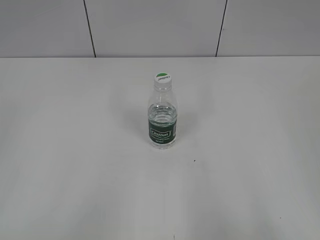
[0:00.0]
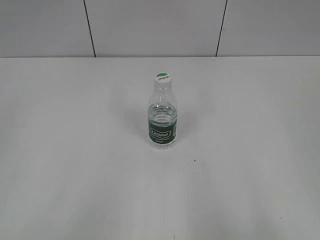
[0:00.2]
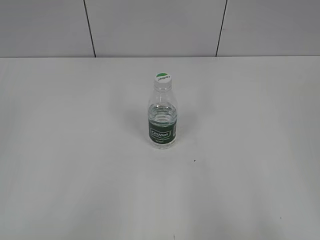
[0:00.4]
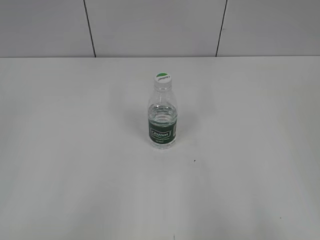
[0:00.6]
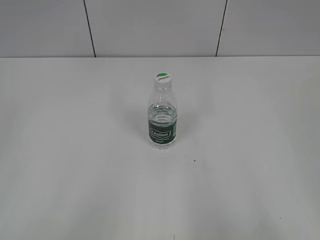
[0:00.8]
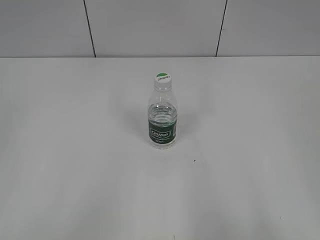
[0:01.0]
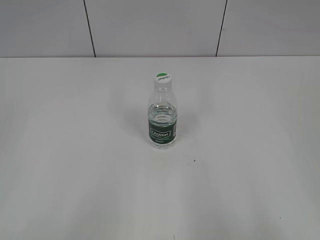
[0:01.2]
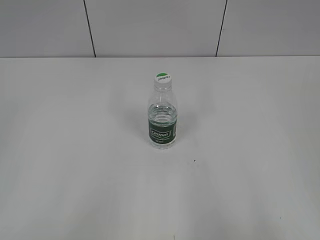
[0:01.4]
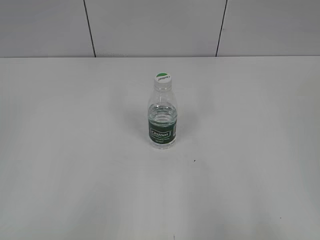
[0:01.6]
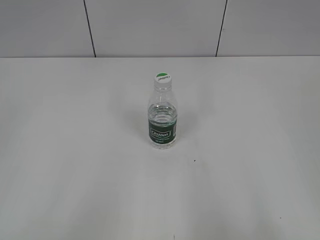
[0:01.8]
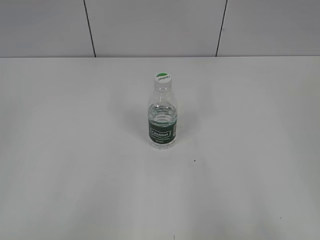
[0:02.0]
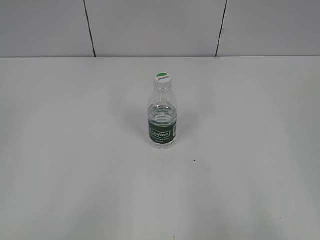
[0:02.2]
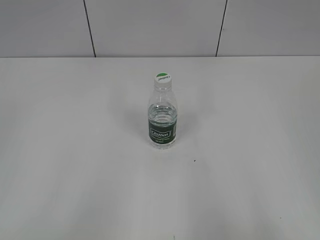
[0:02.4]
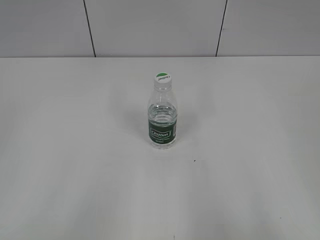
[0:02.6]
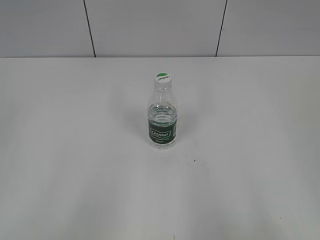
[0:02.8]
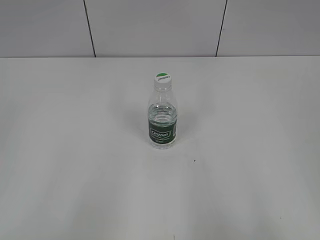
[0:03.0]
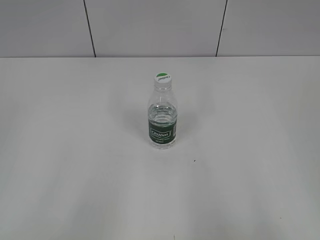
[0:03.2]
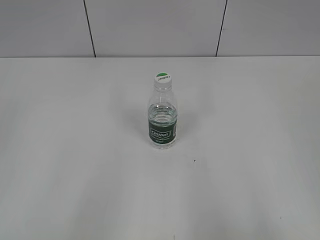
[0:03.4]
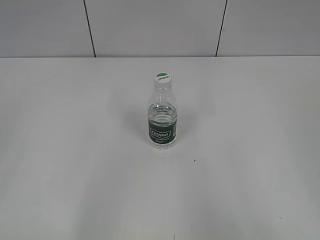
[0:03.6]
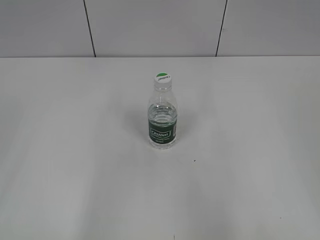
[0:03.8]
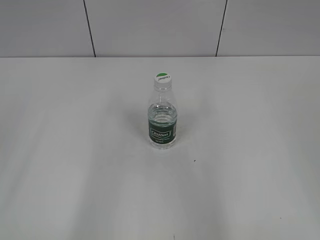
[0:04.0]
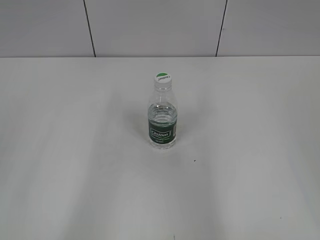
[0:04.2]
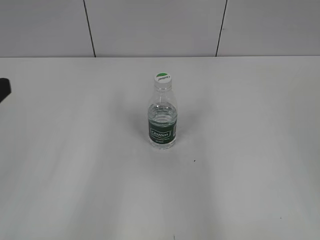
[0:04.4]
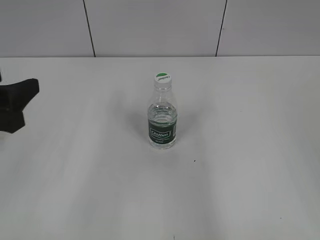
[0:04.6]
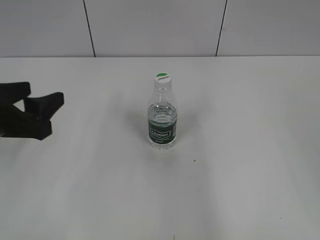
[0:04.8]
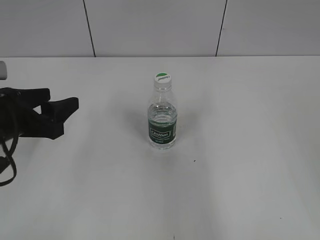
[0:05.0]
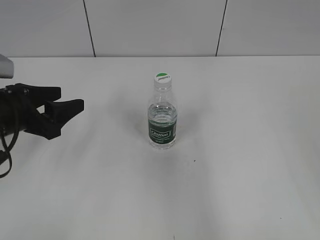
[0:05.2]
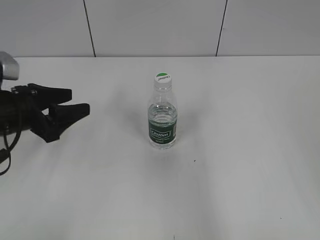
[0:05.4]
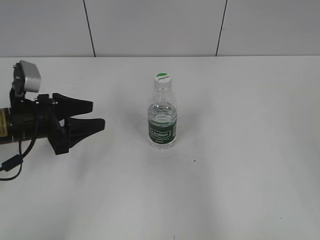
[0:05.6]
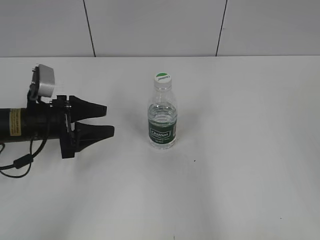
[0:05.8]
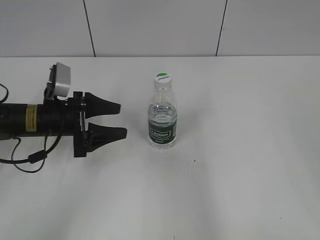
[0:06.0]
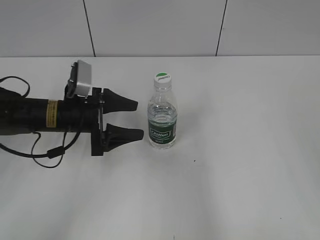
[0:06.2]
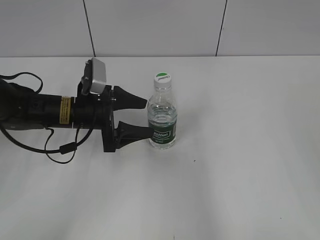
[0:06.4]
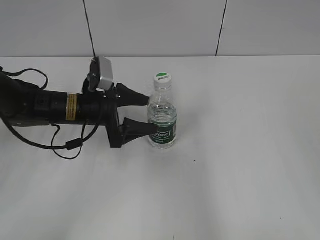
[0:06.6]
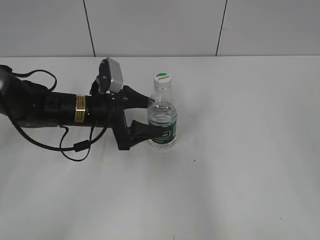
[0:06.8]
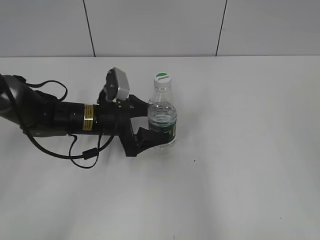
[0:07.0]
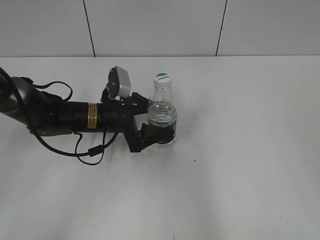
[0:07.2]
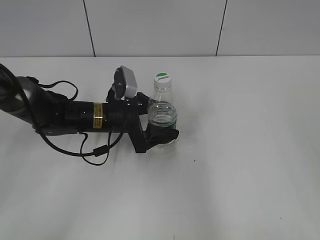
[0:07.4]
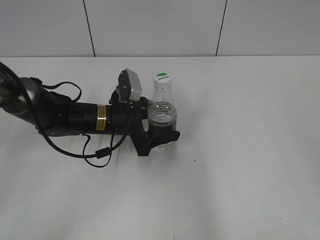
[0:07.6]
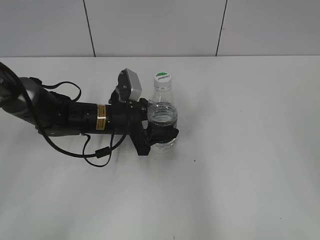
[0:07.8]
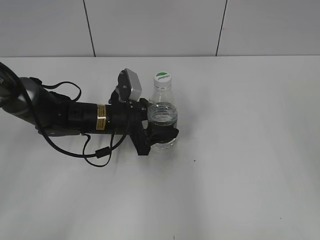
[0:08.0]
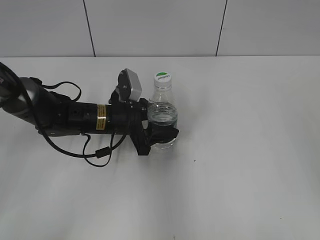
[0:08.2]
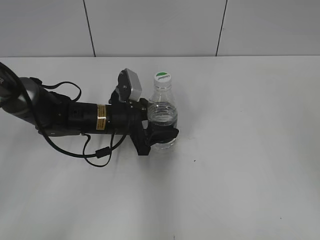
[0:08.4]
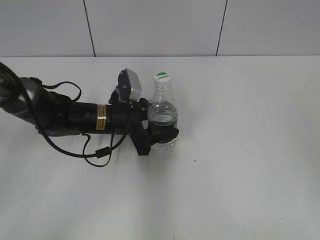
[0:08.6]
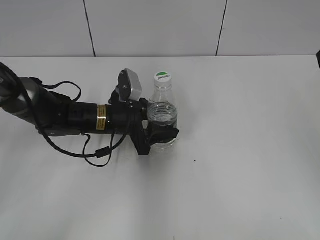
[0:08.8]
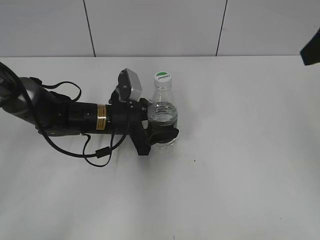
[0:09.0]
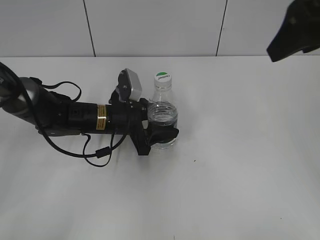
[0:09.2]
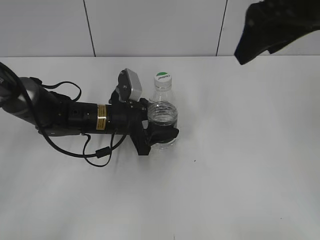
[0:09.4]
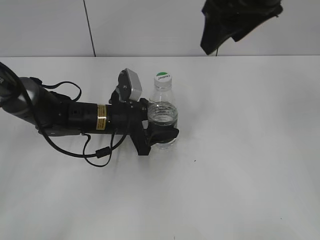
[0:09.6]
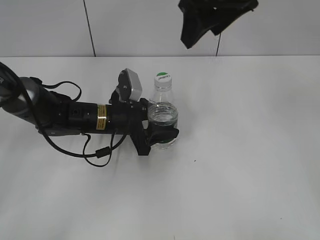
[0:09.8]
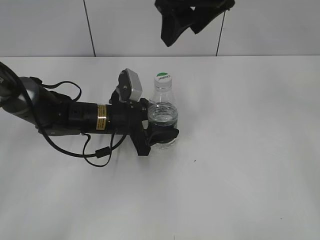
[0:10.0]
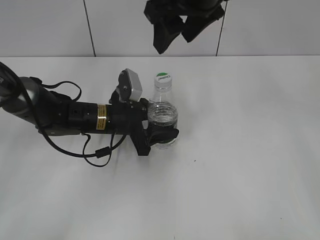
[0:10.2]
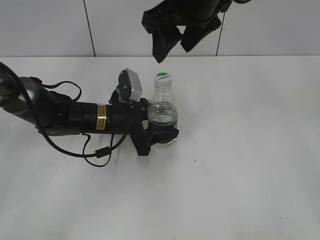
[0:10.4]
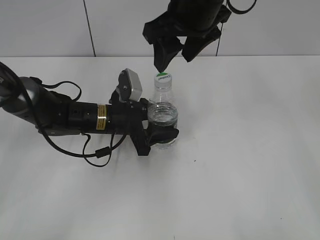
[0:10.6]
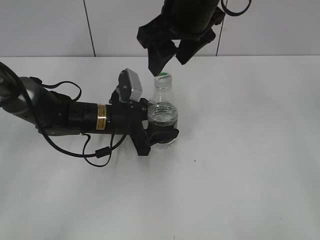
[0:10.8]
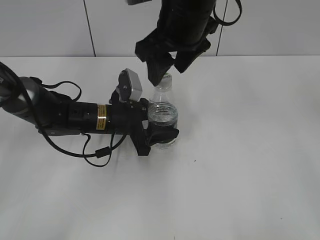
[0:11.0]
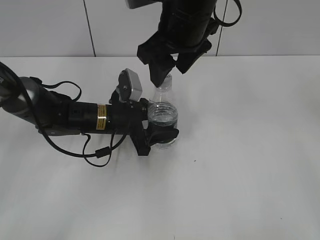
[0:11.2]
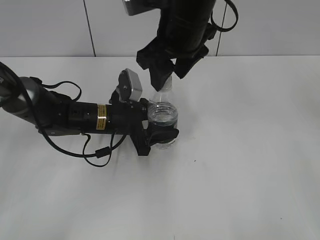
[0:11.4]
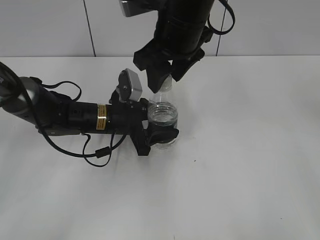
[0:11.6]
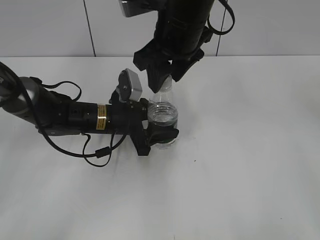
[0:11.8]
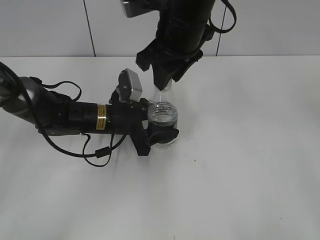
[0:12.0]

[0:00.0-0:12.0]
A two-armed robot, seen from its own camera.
Step, 0:00.0 to 0:07.8: Grasp the bottle and move it to the center of the table with the left gripper.
0:04.4 to 0:06.0: The left gripper goes some 25 cm forward and downward.
0:06.0 to 0:07.6: The left gripper heads to the right, covering approximately 10 cm, and opens, then closes once more.
0:07.6 to 0:09.0: The right gripper travels forward by about 15 cm; the left gripper closes.
0:09.0 to 0:10.4: The right gripper goes roughly 20 cm to the left and forward.
0:10.4 to 0:12.0: The right gripper shifts by some 5 cm, and closes.

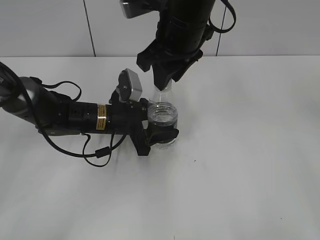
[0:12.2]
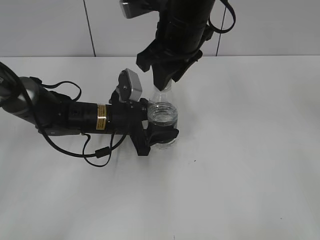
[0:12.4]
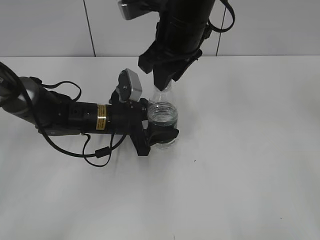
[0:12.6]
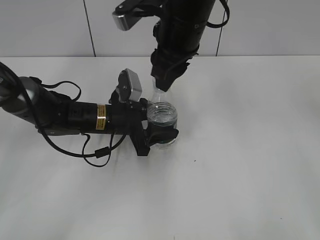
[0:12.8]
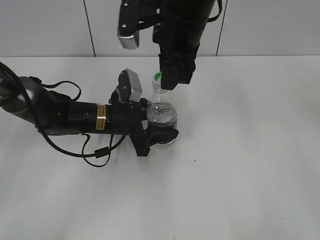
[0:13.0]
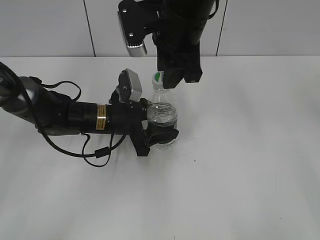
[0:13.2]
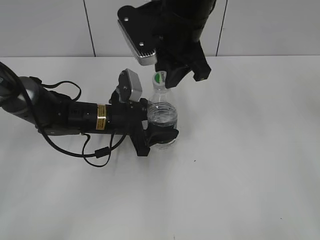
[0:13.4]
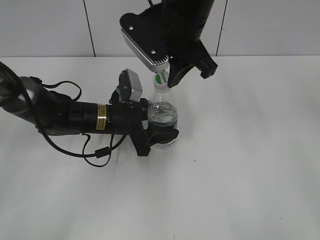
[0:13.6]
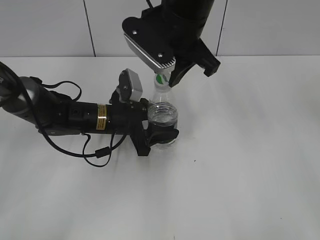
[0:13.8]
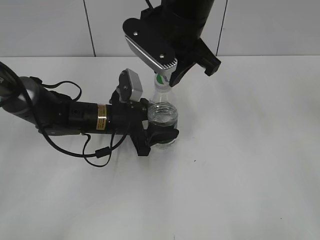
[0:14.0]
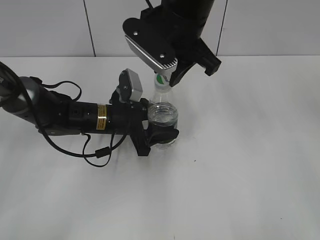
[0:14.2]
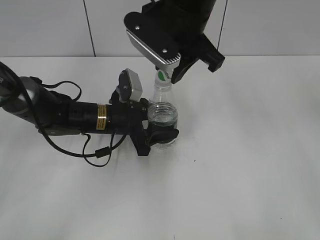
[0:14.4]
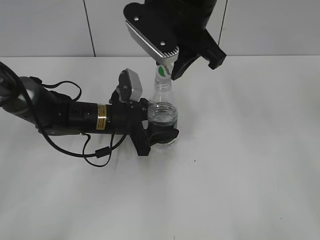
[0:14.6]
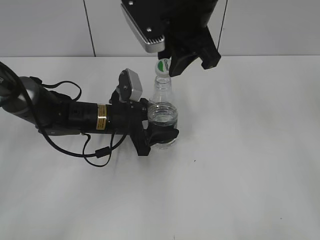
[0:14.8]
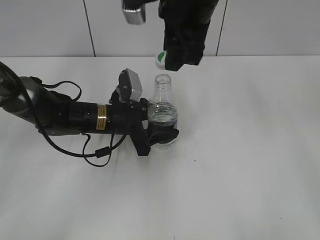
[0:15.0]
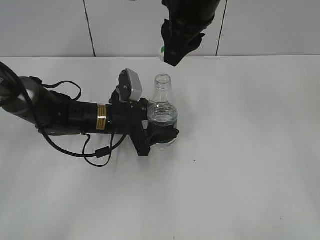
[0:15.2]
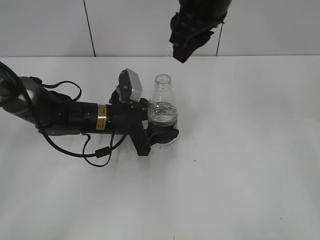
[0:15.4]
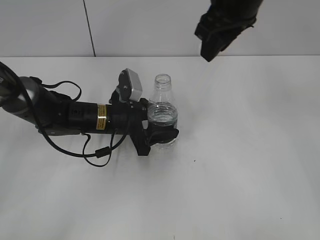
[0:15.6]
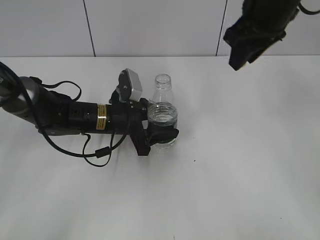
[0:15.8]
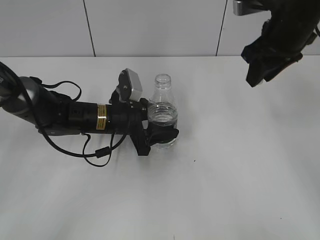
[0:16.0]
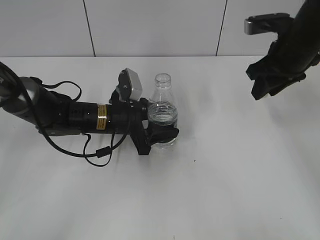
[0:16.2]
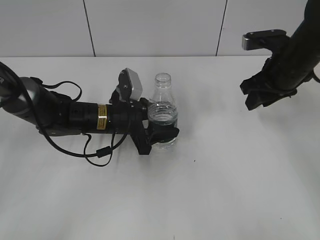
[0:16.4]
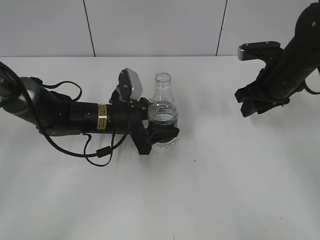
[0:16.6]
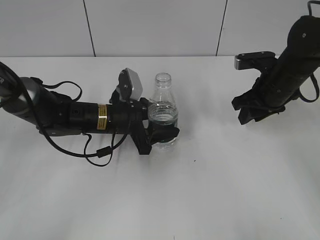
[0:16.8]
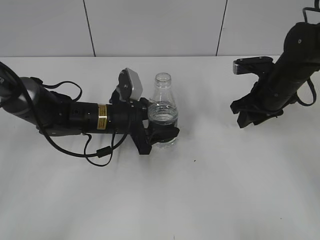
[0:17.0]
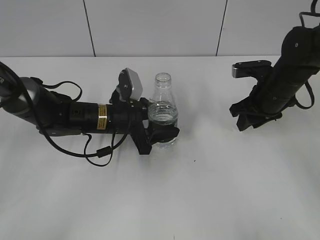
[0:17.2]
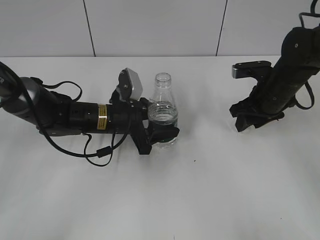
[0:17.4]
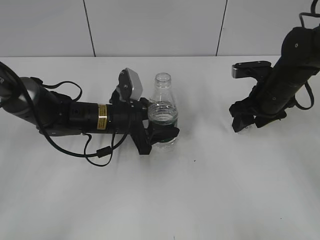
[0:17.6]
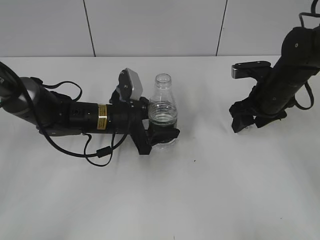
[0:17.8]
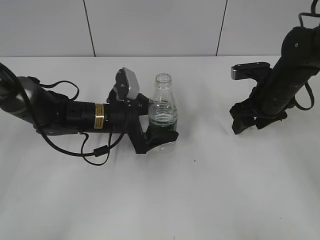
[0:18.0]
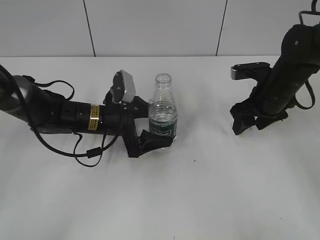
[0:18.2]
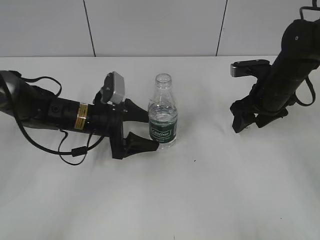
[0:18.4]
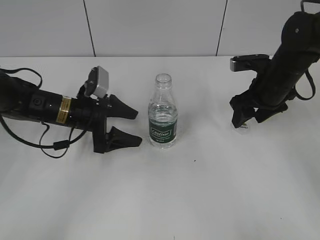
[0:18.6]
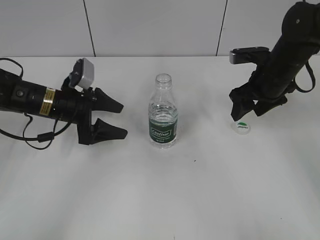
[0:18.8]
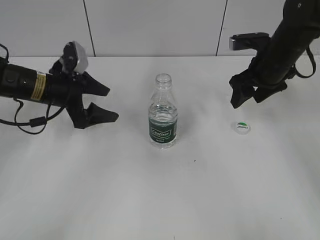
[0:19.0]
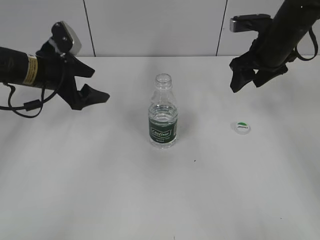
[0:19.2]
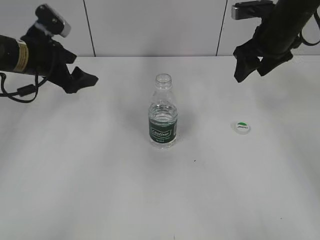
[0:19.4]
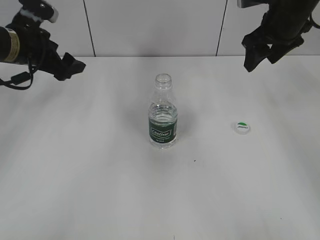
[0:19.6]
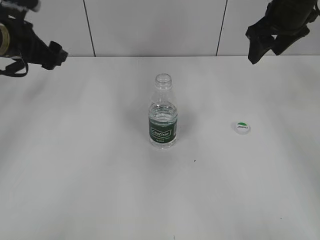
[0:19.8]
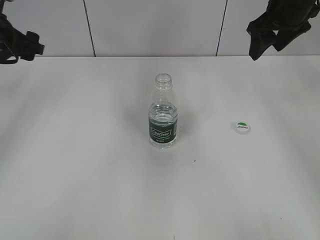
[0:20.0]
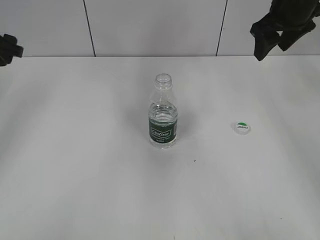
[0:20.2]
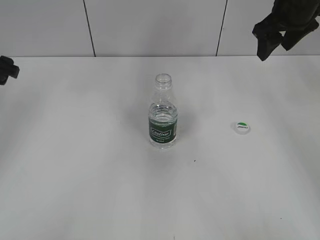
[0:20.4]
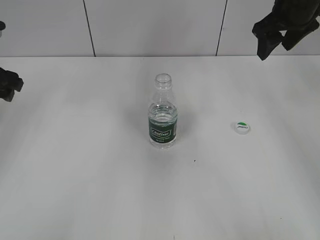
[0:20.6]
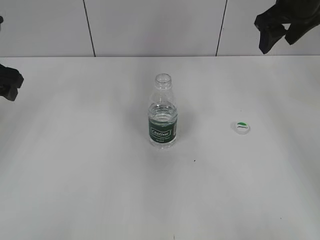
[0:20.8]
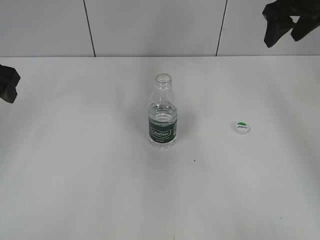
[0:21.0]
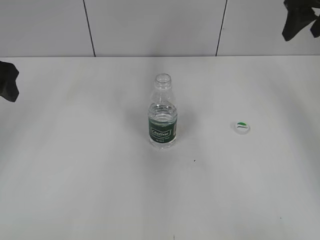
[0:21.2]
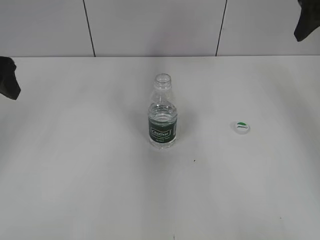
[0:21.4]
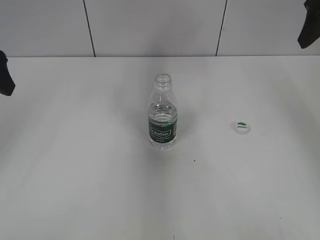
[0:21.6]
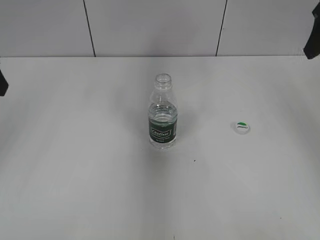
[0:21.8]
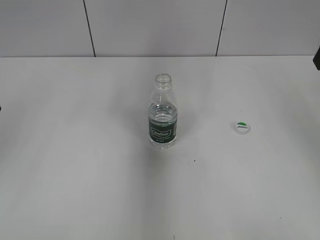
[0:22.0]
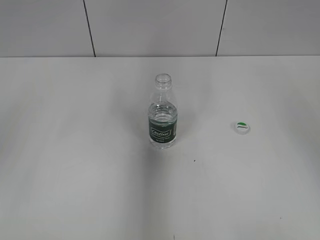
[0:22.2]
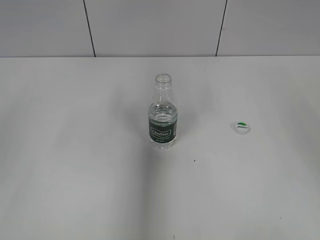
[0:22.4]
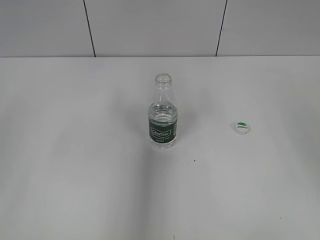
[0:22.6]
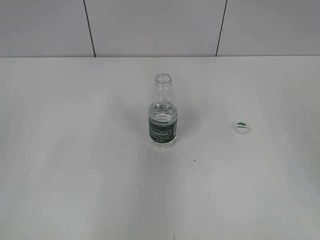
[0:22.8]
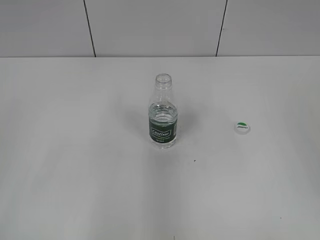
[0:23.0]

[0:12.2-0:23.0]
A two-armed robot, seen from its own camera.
Step, 0:12.2 to 0:14.8: Unscrew the bottle cap with the right gripper while holding the bottle with the left gripper.
Step, 0:15.0 to 0:18.0: Place the bottle cap on the table with the right gripper.
Step, 0:18.2 to 0:18.4: Place the bottle on the table with the left gripper.
0:13.8 to 0:15.2: The right gripper shifts by approximately 5 cm.
0:15.2 to 0:16.8: The right gripper goes roughly 25 cm to the right and downward.
0:16.8 to 0:18.4: The left gripper opens its fingers, while the right gripper opens up.
0:18.4 to 0:20.0: The right gripper is displaced upward by some 15 cm. Meanwhile the left gripper heads upward and to the left, covering some 25 cm.
0:20.0 to 0:21.4: The left gripper is displaced backward by about 10 cm, while the right gripper is displaced to the right and upward by some 10 cm.
0:21.4 to 0:23.0: The two grippers go roughly 20 cm backward.
